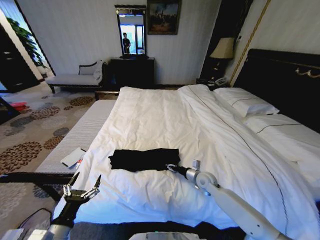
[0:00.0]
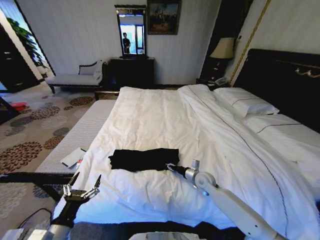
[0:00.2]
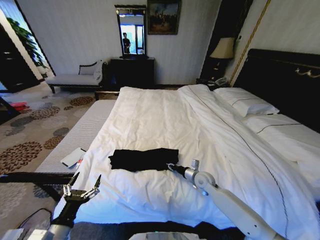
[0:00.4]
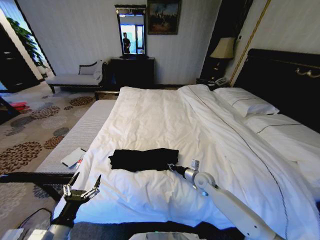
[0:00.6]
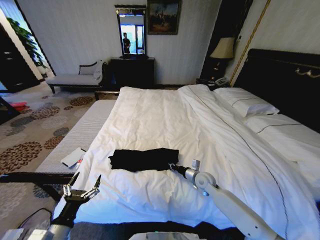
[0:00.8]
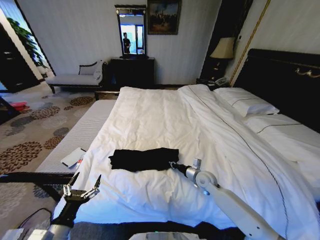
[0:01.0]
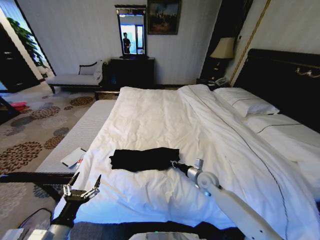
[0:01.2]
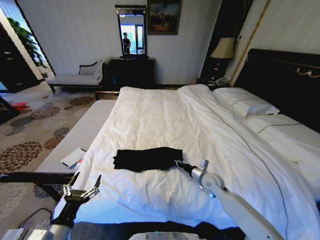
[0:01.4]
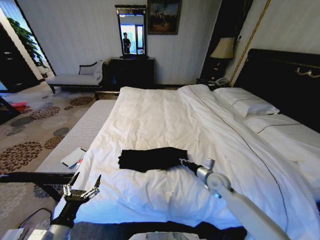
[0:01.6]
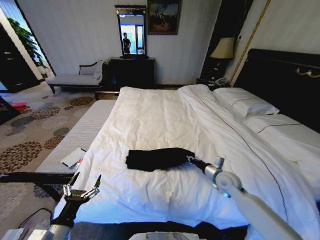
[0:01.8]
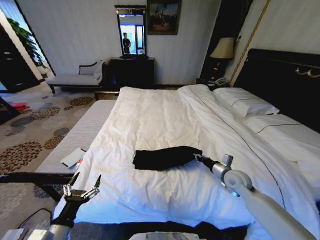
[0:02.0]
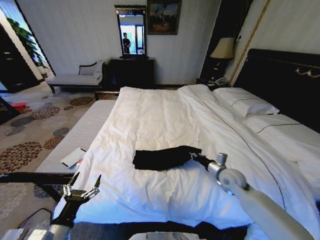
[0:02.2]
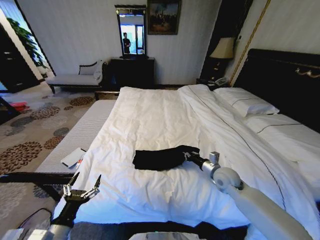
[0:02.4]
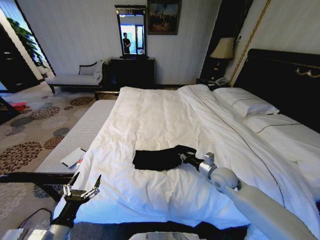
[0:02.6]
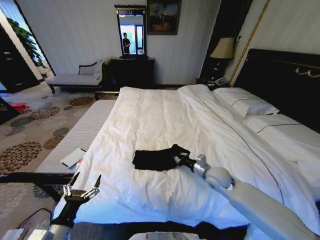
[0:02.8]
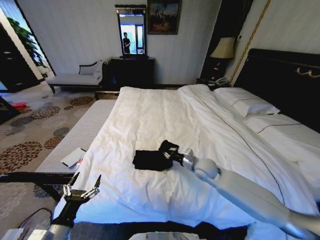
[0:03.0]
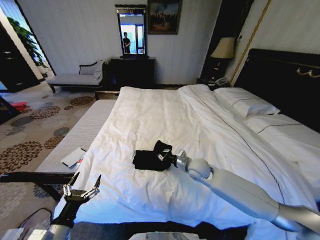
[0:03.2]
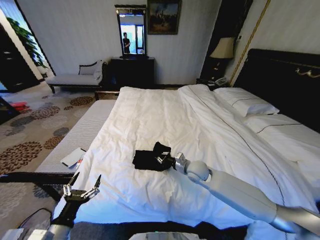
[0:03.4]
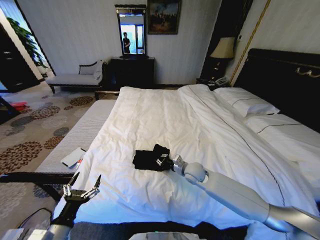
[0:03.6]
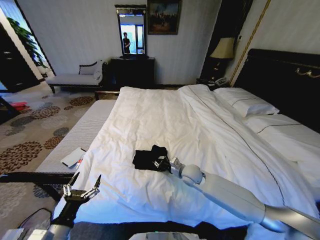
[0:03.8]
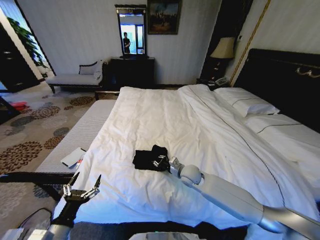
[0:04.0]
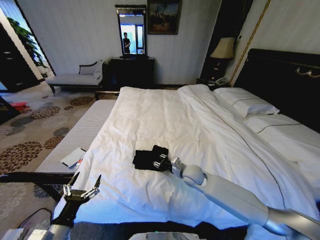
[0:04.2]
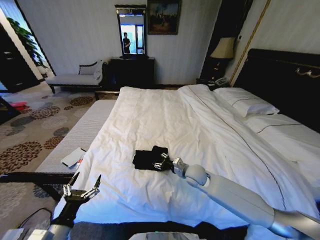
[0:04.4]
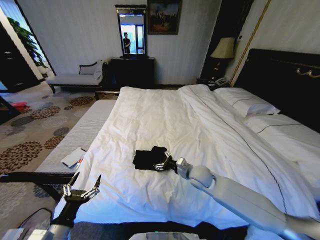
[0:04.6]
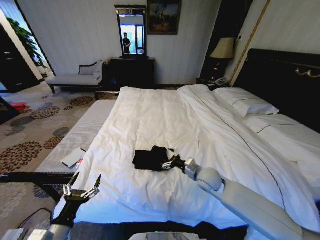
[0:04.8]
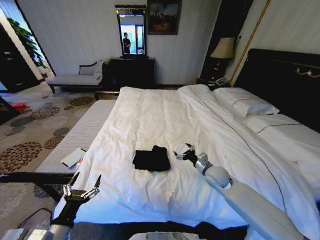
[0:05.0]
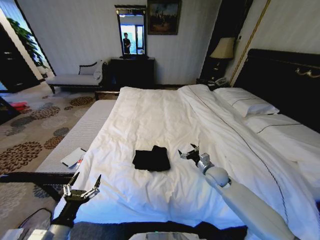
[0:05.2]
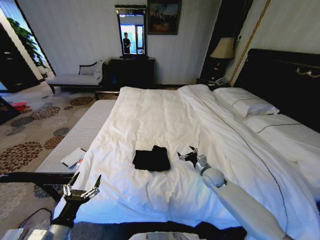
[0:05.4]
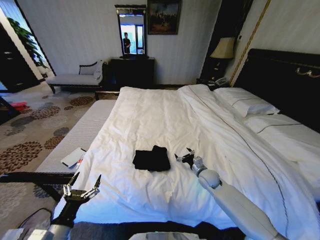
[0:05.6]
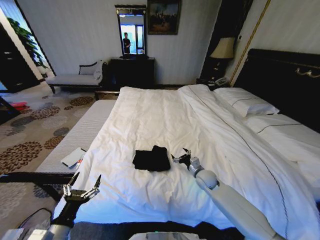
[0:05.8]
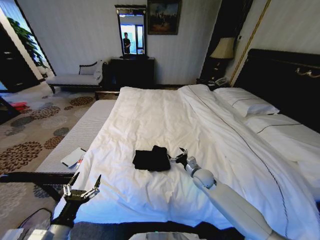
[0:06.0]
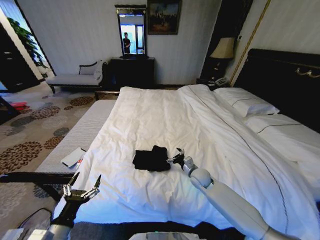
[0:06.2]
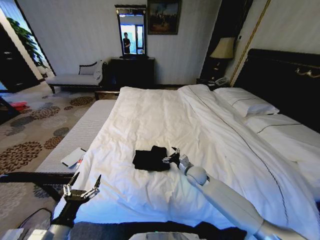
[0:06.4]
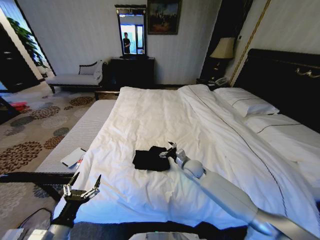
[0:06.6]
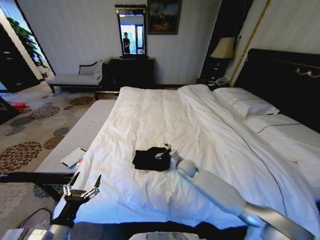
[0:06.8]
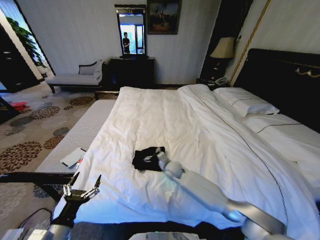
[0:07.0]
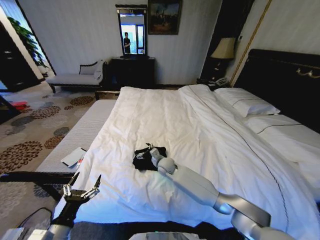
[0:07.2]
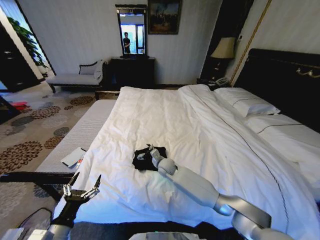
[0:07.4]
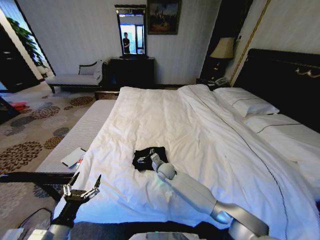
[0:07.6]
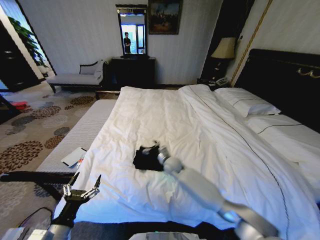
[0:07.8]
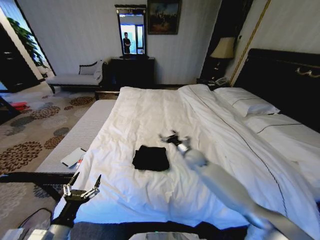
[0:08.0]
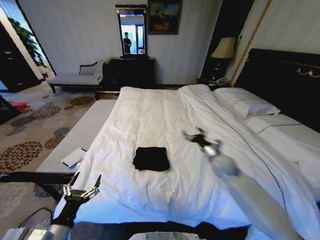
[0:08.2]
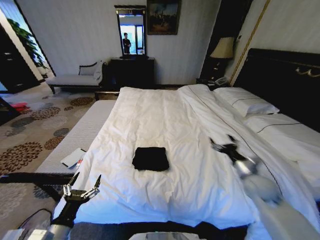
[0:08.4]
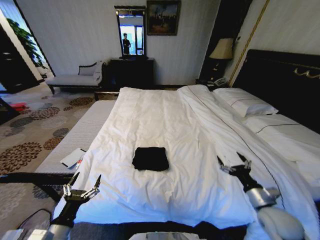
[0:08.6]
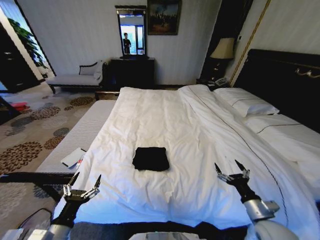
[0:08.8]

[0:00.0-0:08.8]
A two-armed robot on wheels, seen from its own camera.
Task of the whole recording: Fold the clothes on the bed.
0:00.0 to 0:01.4: The right gripper closes up.
0:01.4 to 0:03.0: The right gripper shifts some 10 cm upward and to the left.
0:03.0 to 0:04.4: The right gripper opens.
0:04.4 to 0:05.8: The right gripper goes about 10 cm to the right and downward, and opens up.
0:05.8 to 0:07.4: The right gripper travels to the left by some 20 cm.
0:07.4 to 0:08.8: The right gripper shifts about 40 cm to the right and backward.

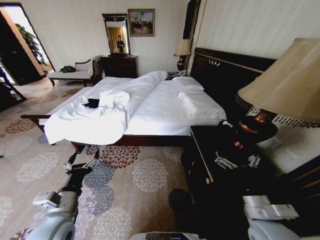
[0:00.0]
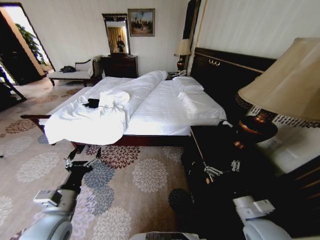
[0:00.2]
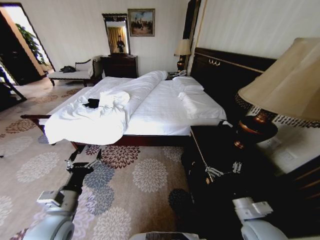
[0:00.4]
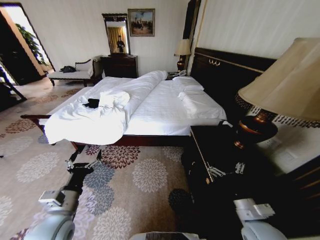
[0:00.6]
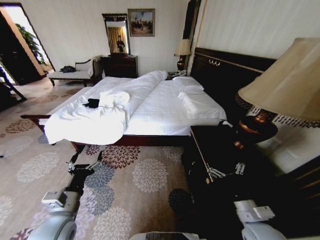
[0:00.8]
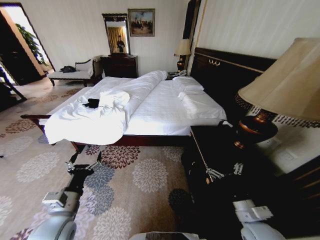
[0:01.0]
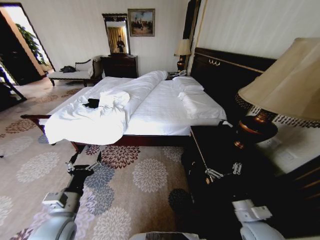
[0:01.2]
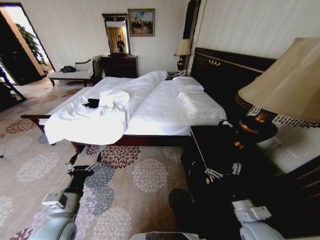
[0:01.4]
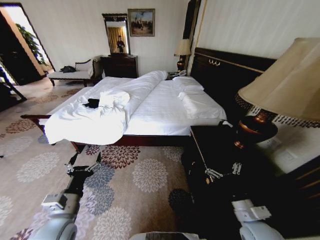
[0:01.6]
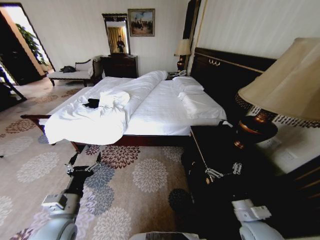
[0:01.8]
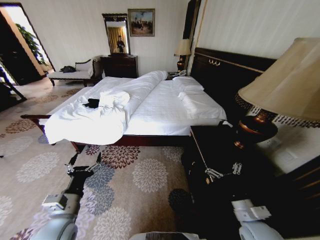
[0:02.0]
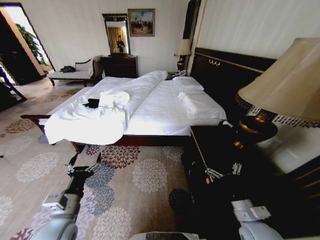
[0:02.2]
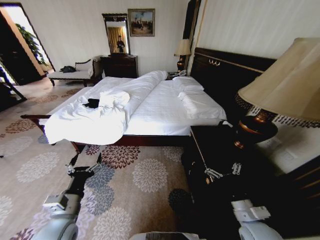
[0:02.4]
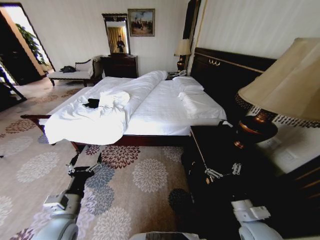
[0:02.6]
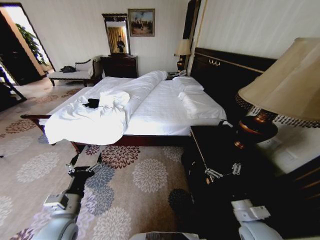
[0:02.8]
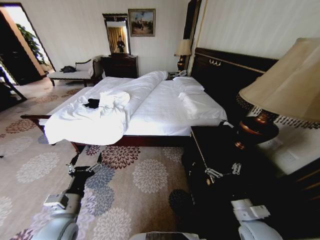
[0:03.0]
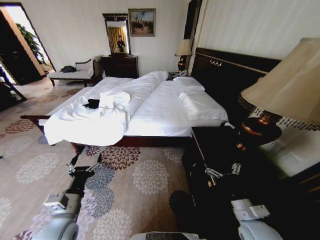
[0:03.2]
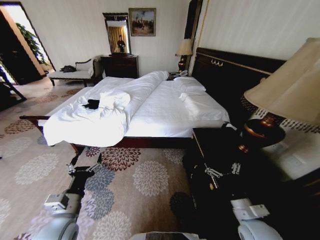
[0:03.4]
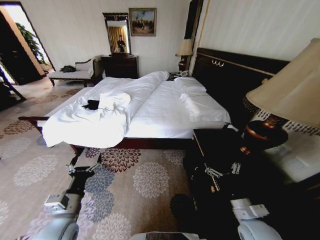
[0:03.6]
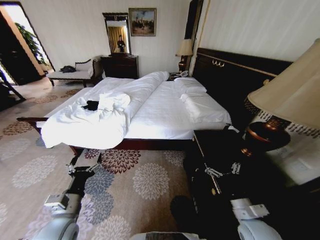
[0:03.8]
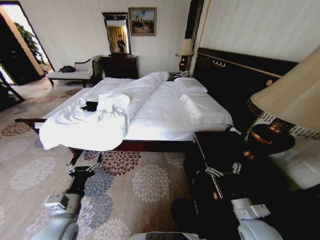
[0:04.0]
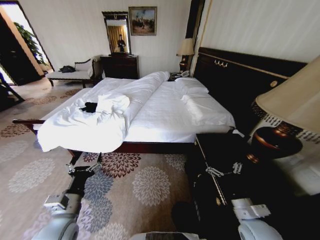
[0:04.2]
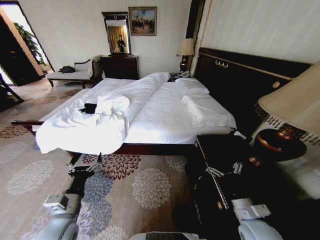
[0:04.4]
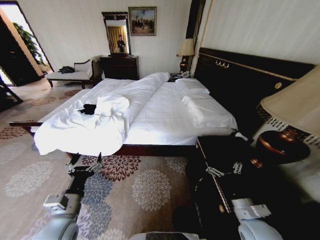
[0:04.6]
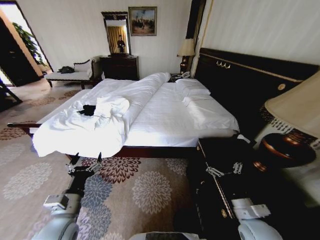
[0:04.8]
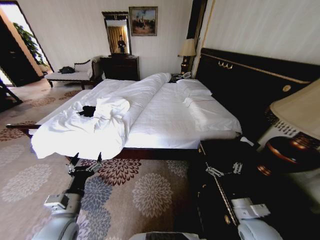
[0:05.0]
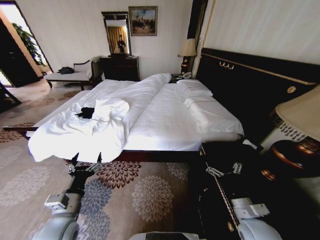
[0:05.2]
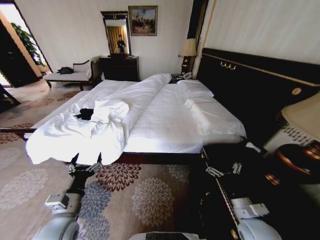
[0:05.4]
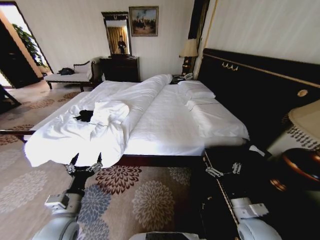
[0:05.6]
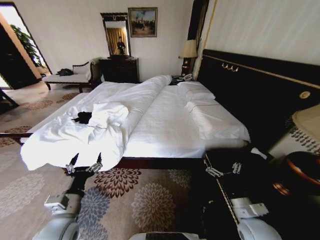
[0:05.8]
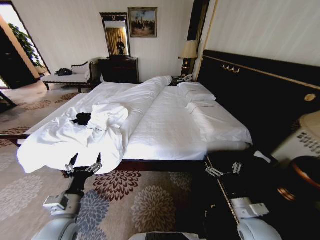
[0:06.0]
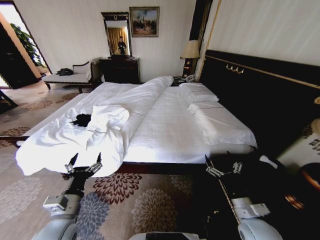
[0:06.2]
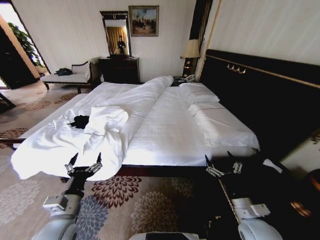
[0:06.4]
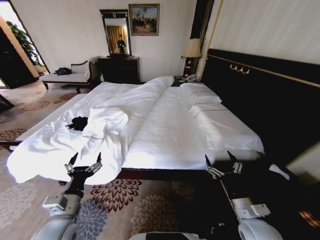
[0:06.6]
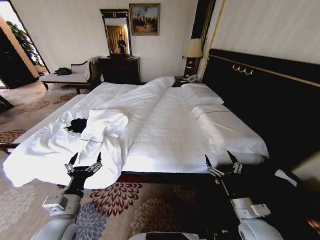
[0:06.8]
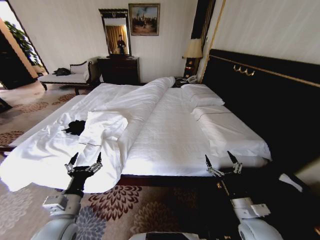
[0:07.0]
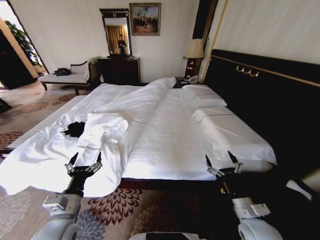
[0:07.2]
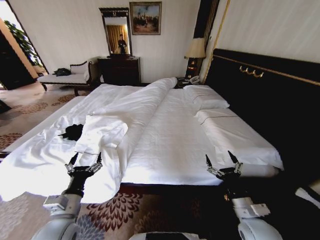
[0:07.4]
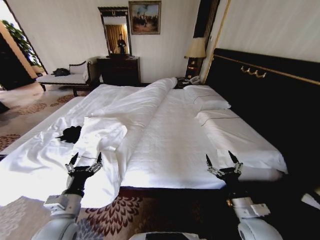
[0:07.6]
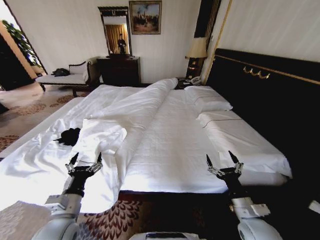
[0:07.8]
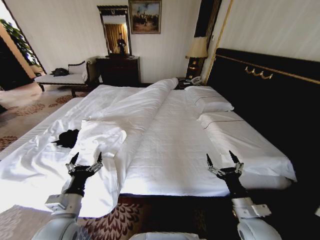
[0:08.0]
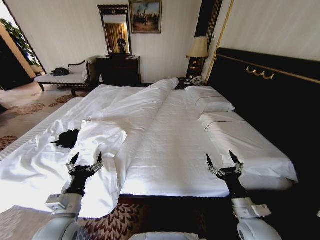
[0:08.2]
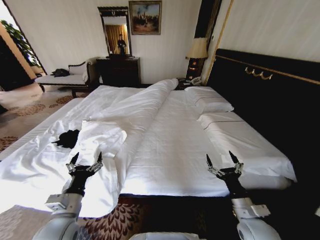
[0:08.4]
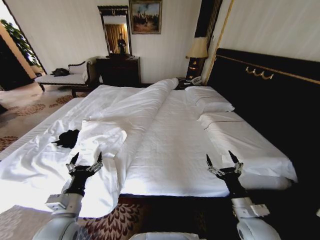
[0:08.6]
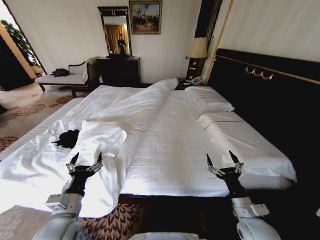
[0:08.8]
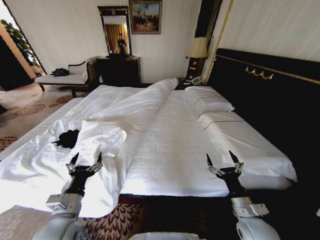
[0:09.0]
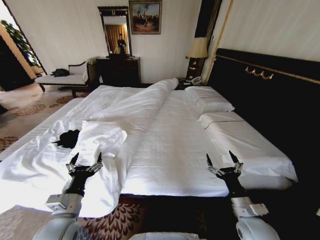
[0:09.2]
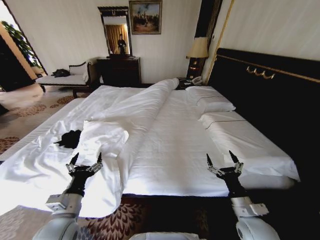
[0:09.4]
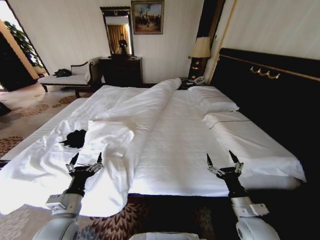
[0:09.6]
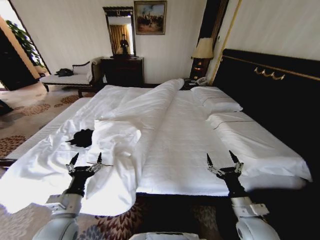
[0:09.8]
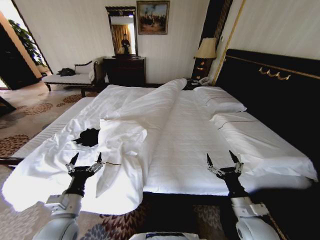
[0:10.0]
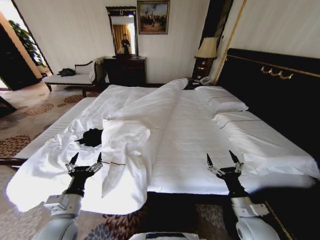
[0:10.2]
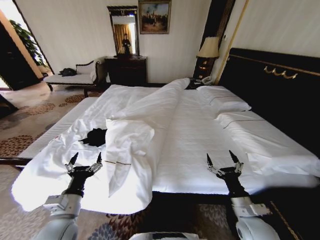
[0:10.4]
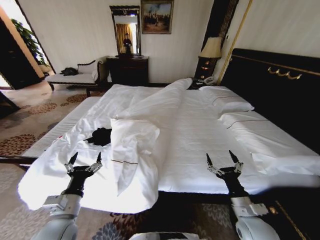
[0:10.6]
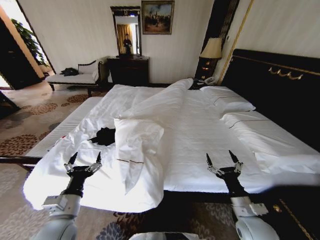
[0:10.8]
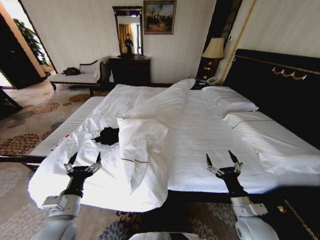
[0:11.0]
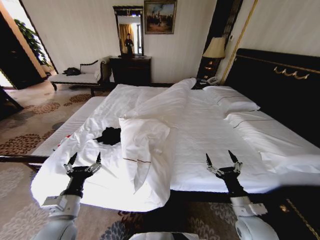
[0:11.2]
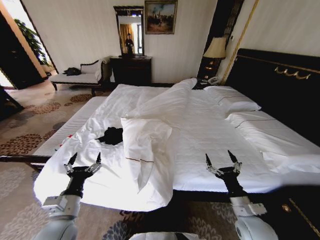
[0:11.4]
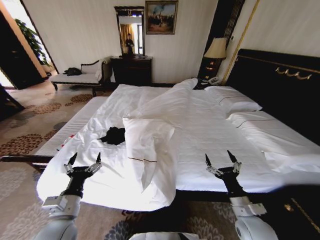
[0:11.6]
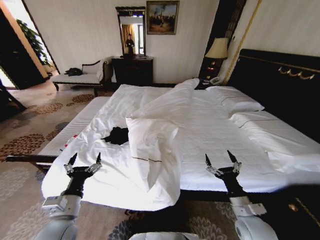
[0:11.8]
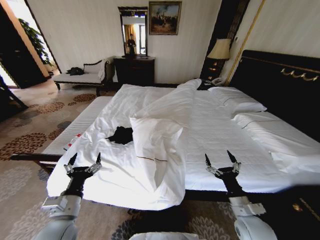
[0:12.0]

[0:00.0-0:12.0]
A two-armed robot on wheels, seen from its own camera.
Task of the whole recording: Fold the clothes on the bed.
0:01.6 to 0:03.0: Both grippers stay put.
0:07.6 to 0:09.0: Both grippers stay put.

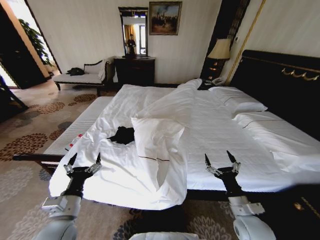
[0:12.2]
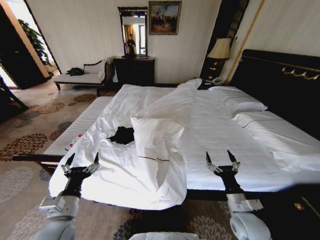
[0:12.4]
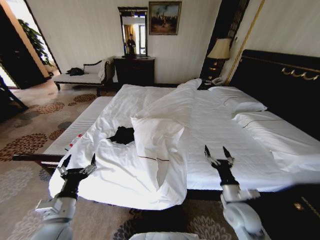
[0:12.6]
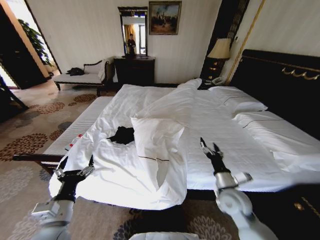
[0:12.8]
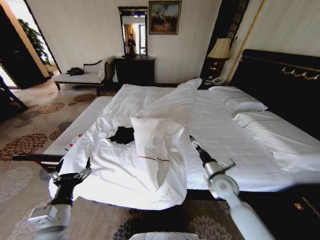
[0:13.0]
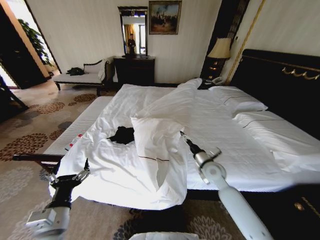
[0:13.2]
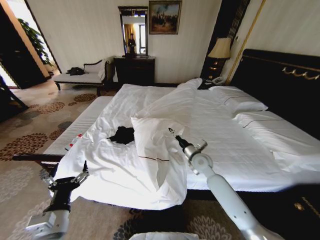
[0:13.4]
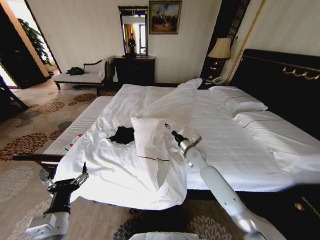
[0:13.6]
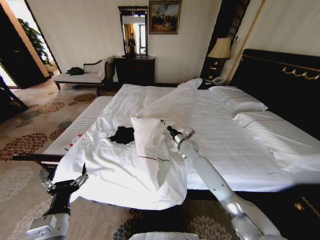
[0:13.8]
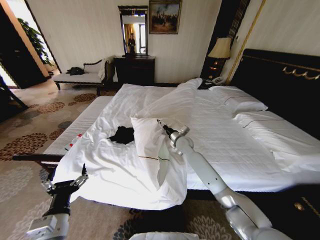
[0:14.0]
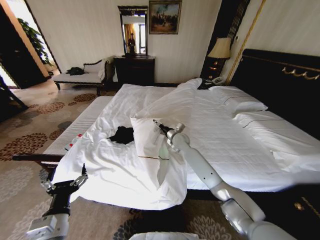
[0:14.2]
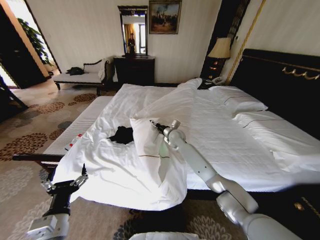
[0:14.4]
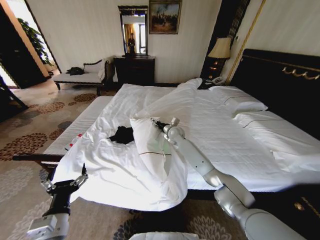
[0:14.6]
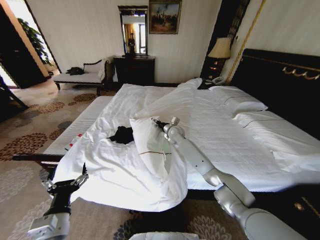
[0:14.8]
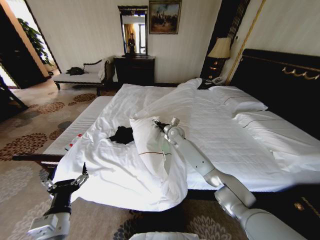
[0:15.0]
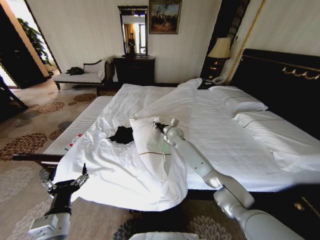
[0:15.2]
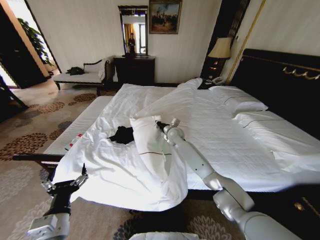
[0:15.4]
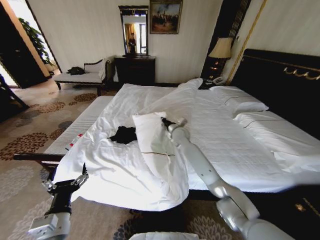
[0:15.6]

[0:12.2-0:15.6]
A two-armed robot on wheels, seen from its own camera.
Task of the whole recording: Fold the clothes on the bed.
0:12.2 to 0:13.8: The right gripper goes about 35 cm forward and to the left.
0:13.8 to 0:15.6: The right gripper changes place by about 10 cm, and closes.
